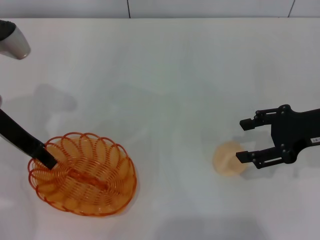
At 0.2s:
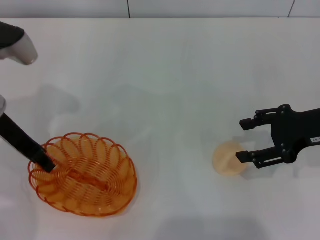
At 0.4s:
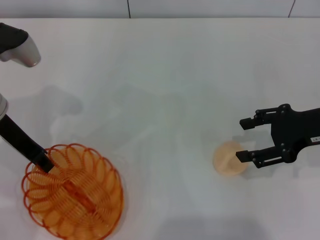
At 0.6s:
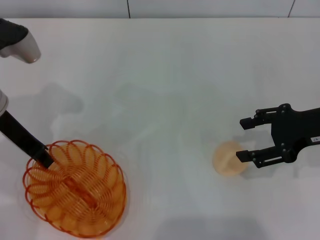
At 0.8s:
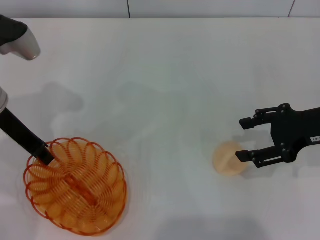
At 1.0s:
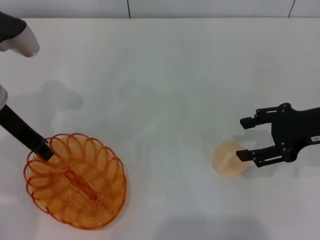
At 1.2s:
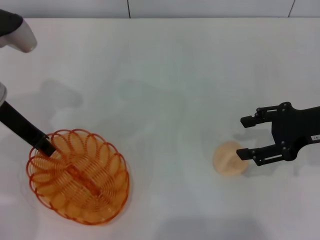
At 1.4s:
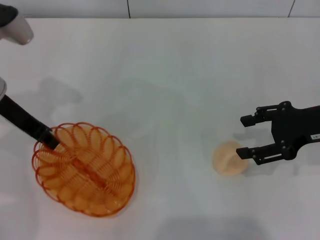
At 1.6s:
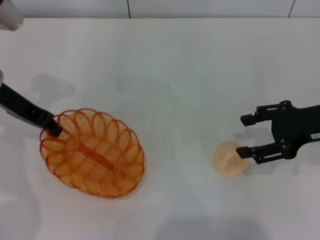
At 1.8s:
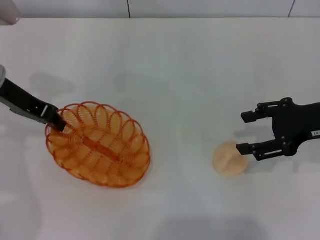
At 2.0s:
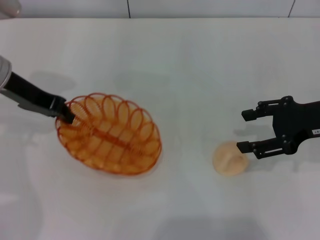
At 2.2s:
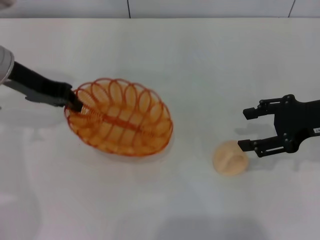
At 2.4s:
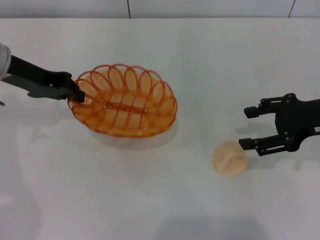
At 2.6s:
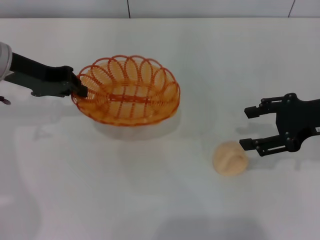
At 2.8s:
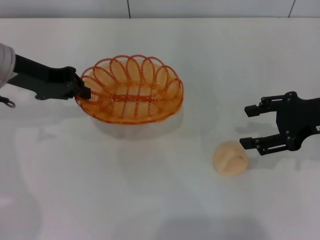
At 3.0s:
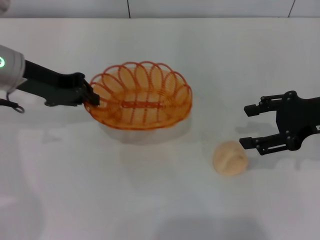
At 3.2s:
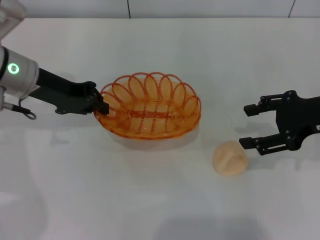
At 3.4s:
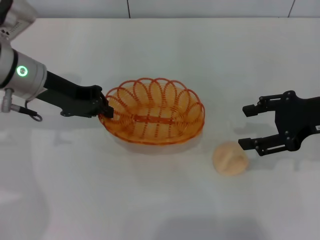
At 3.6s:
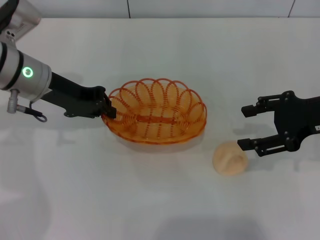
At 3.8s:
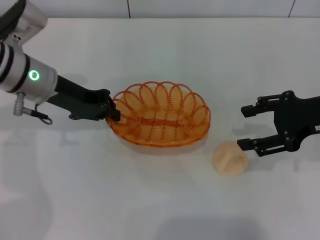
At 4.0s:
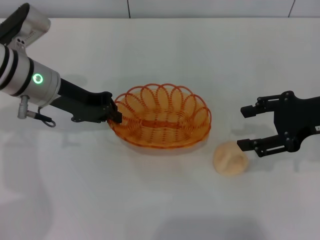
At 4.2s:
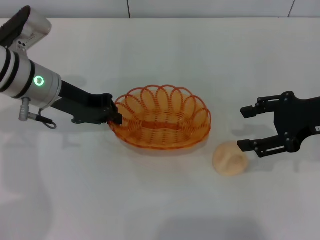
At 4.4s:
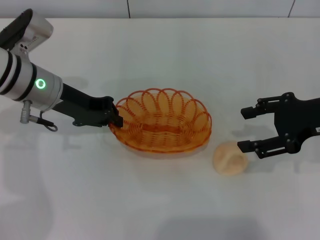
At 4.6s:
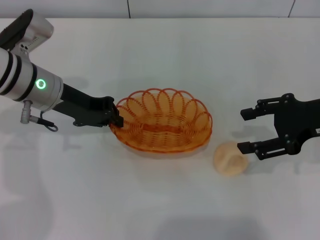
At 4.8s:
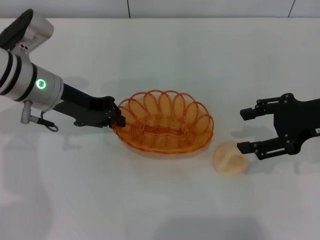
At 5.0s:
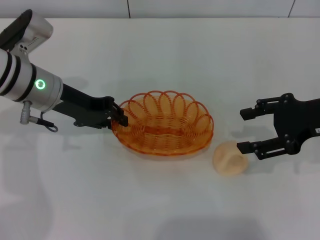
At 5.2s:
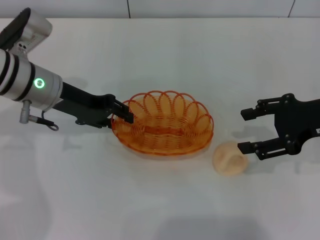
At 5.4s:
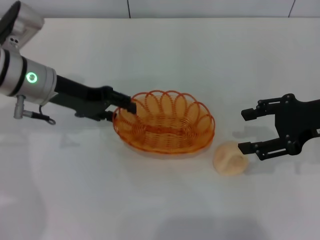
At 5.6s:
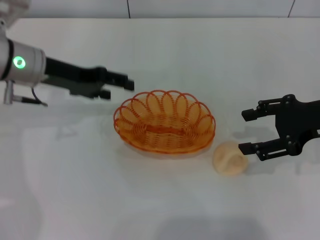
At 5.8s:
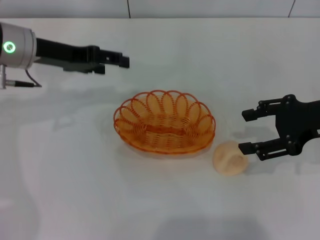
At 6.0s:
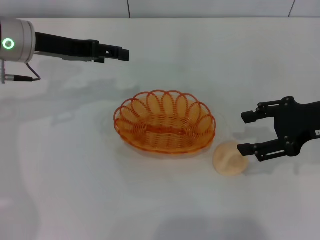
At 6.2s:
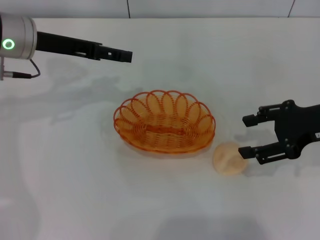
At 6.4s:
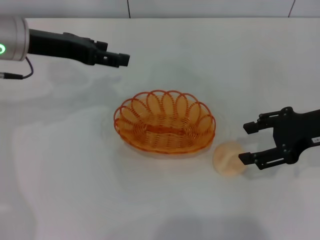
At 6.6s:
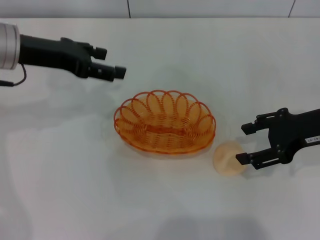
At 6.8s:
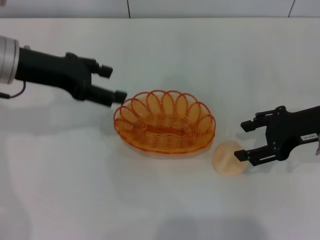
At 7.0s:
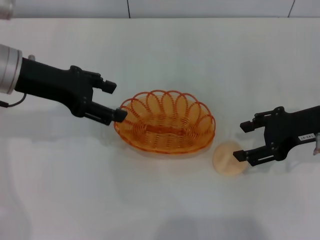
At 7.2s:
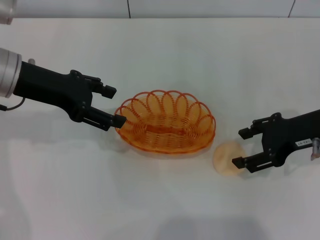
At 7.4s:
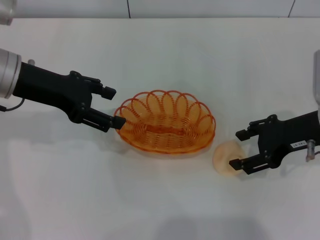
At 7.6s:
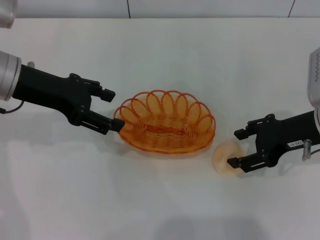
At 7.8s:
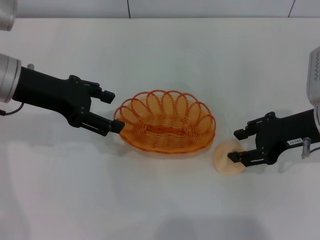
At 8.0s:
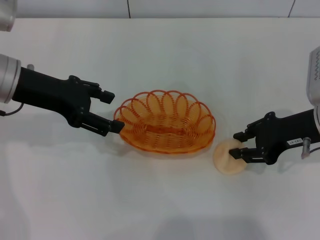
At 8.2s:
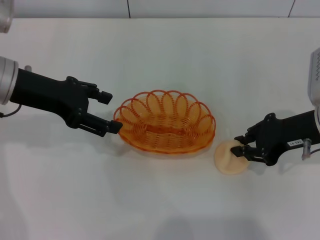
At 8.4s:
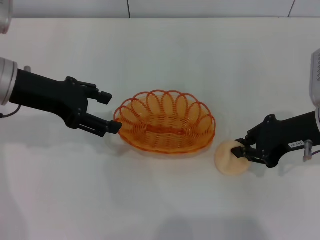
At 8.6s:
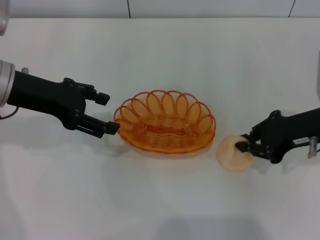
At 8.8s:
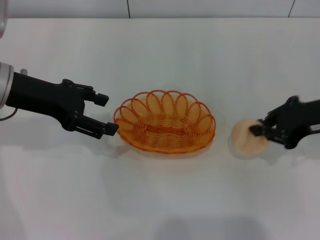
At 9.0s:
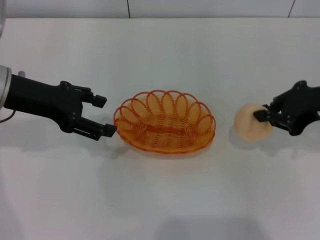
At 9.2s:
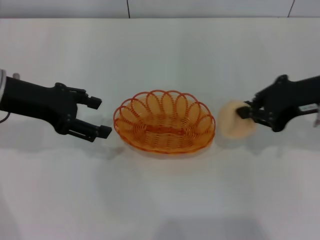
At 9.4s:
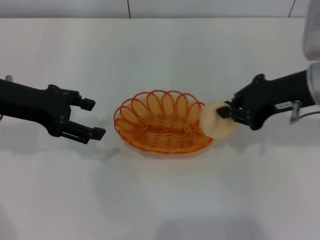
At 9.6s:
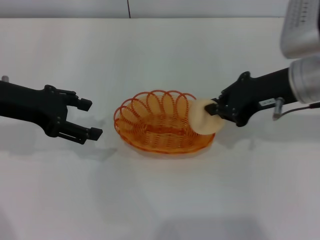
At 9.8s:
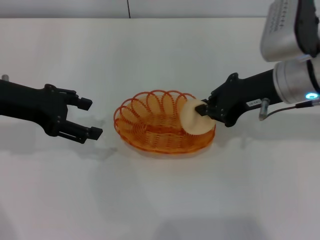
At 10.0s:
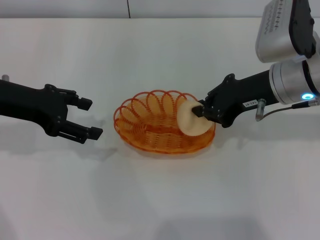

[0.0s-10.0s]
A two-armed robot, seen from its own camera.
Step, 0.0s to 2.2s: Pick up the basket with the left gripper.
Step, 2.4s to 5.8s: Place the basket in the center of view with the left gripper.
Step, 6.0s to 9.0s: Pick up the egg yolk pastry with the right gripper.
0.0s to 1.4s: The left gripper closes up.
2.8s to 4.2s: The left gripper ends up some 5 cm from where it was.
4.2s to 5.8s: The left gripper shifts by some 5 cm, and opens.
7.2s to 8.6s: The right gripper closes.
8.6s to 10.0s: The right gripper goes about 5 cm to the left.

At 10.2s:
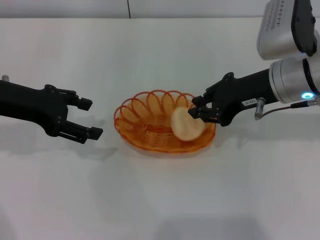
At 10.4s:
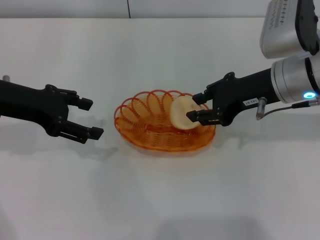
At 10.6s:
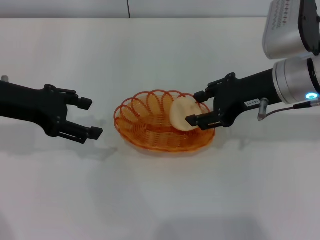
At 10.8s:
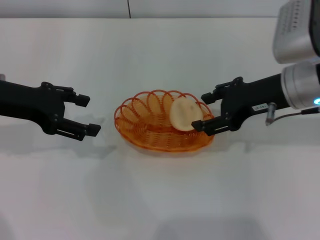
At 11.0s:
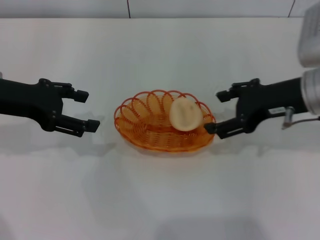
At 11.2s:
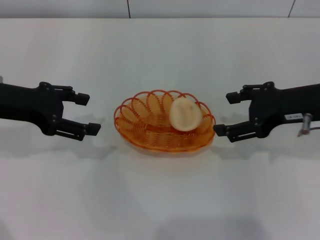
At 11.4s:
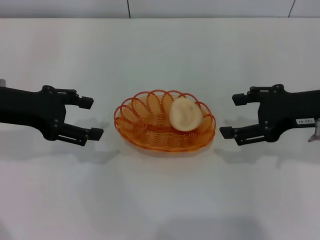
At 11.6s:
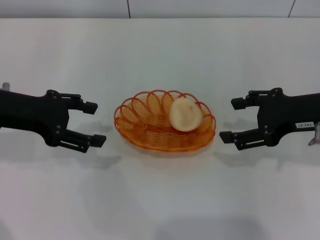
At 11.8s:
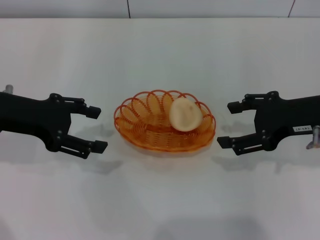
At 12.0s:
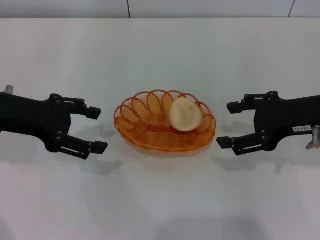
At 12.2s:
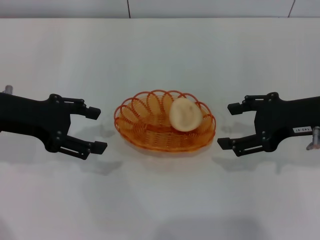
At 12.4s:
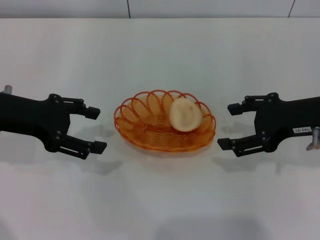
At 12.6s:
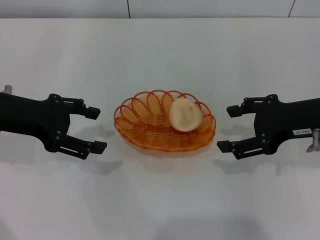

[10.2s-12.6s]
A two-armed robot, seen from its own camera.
10.2s to 11.4s: The right gripper is displaced to the right by roughly 5 cm, and opens its fingers.
11.4s to 12.6s: The grippers move only a little.

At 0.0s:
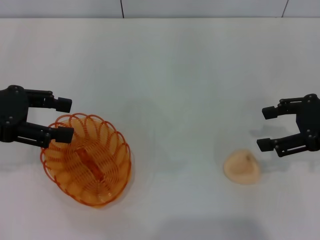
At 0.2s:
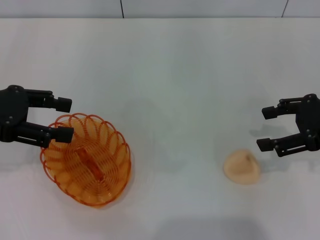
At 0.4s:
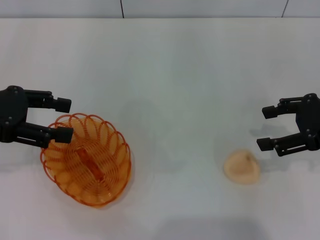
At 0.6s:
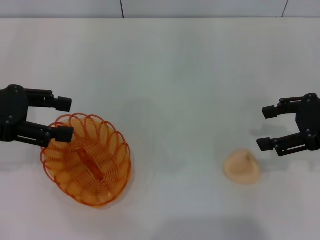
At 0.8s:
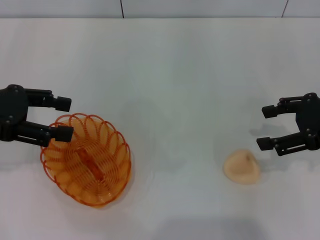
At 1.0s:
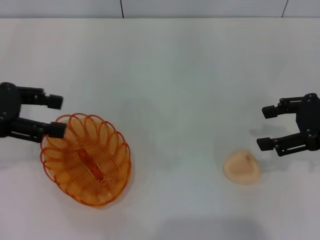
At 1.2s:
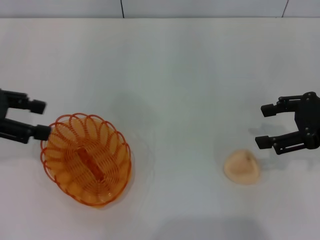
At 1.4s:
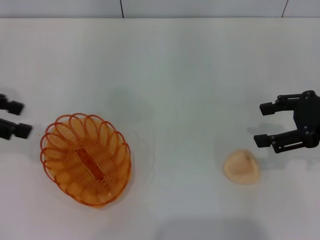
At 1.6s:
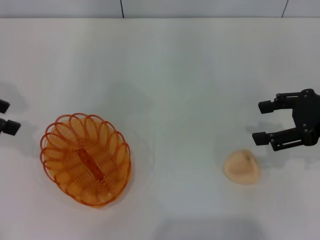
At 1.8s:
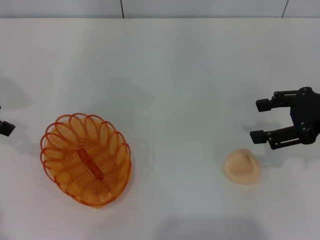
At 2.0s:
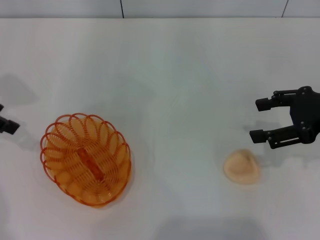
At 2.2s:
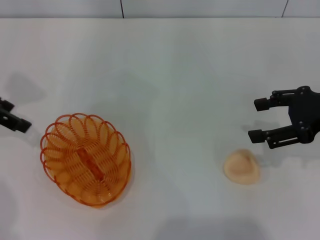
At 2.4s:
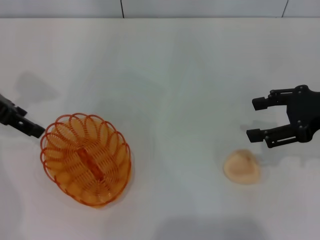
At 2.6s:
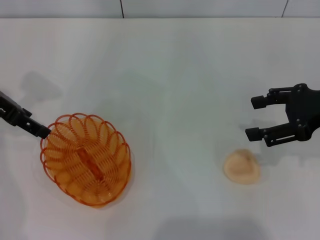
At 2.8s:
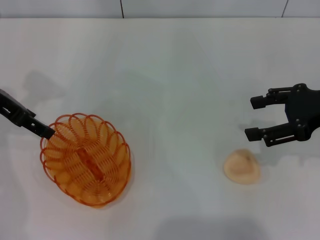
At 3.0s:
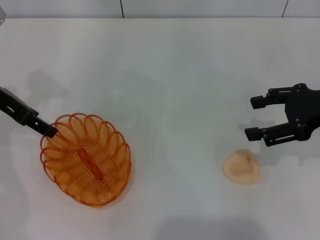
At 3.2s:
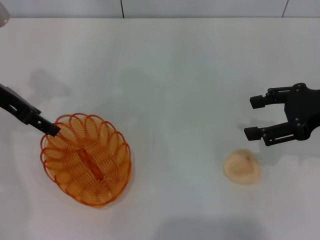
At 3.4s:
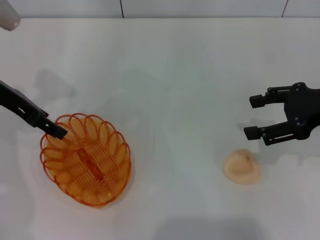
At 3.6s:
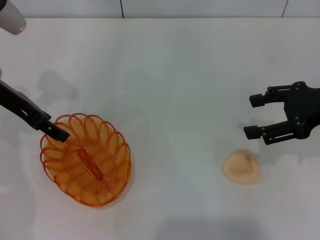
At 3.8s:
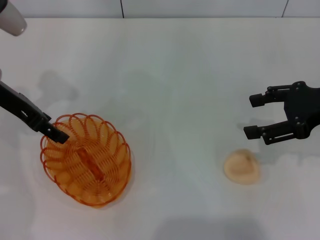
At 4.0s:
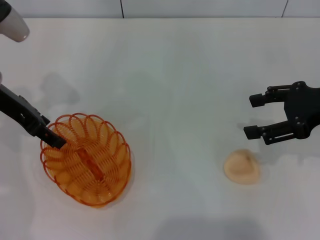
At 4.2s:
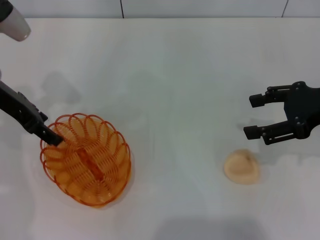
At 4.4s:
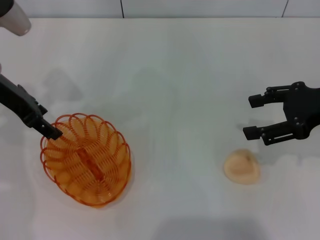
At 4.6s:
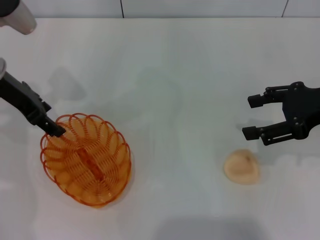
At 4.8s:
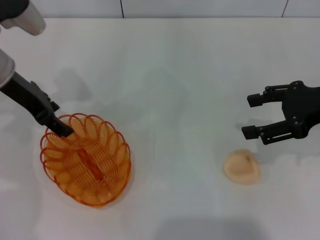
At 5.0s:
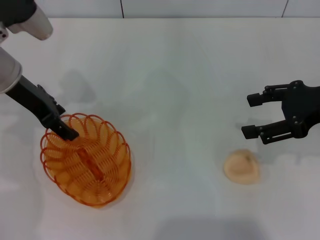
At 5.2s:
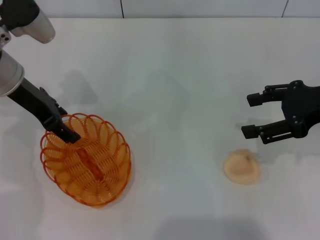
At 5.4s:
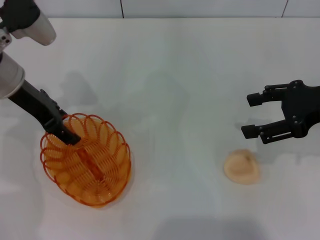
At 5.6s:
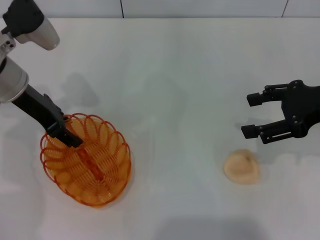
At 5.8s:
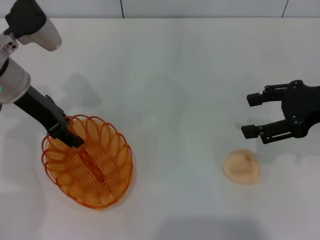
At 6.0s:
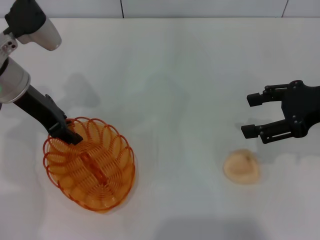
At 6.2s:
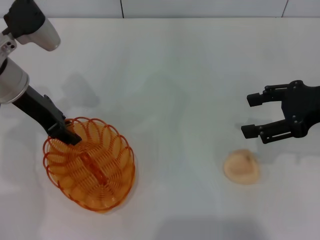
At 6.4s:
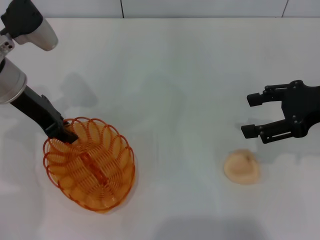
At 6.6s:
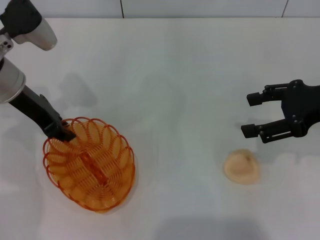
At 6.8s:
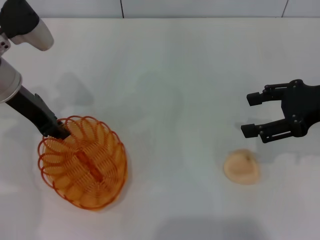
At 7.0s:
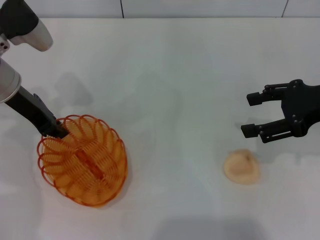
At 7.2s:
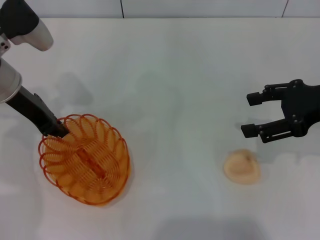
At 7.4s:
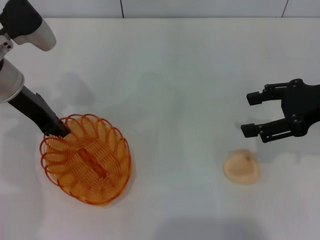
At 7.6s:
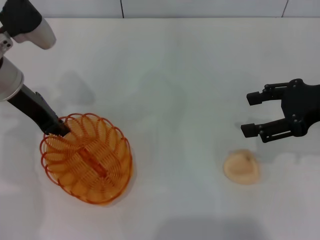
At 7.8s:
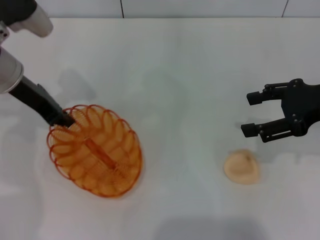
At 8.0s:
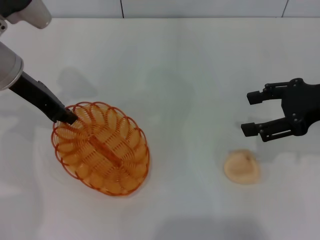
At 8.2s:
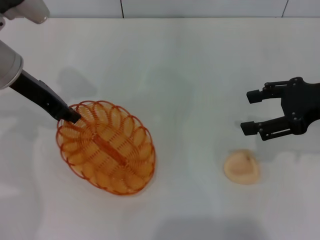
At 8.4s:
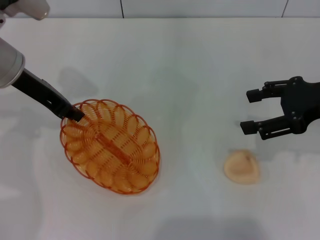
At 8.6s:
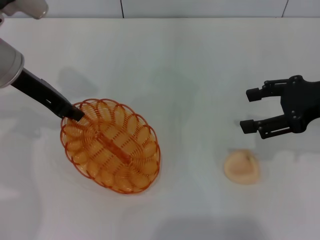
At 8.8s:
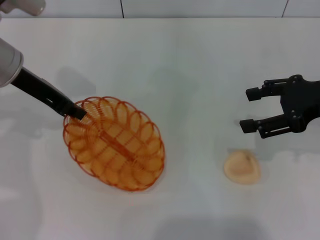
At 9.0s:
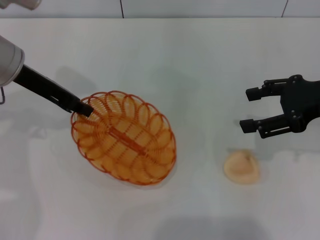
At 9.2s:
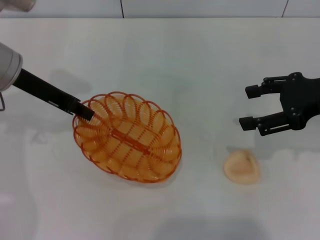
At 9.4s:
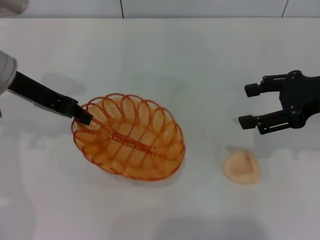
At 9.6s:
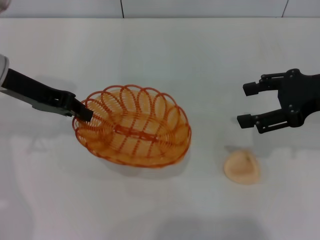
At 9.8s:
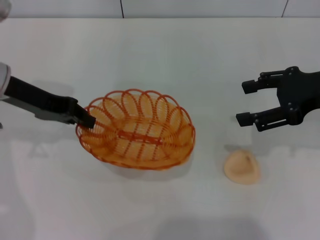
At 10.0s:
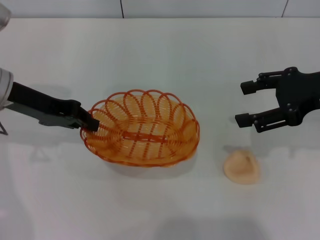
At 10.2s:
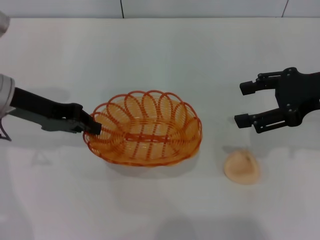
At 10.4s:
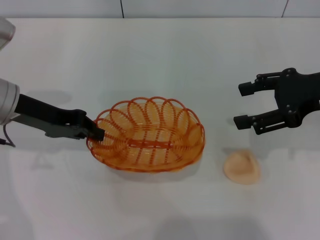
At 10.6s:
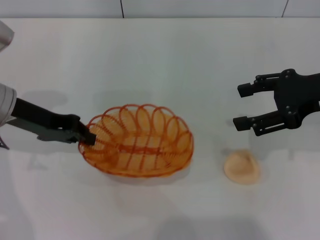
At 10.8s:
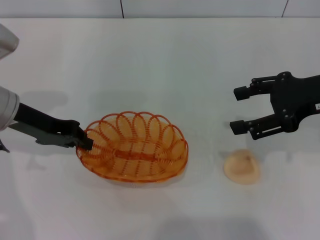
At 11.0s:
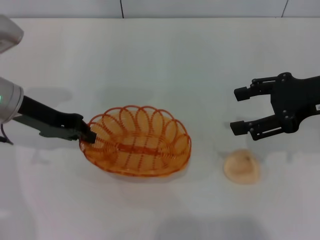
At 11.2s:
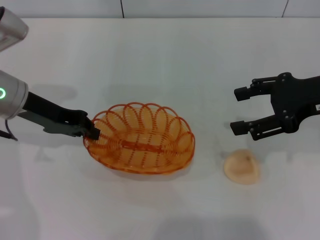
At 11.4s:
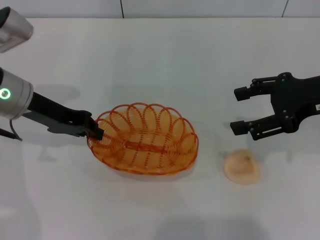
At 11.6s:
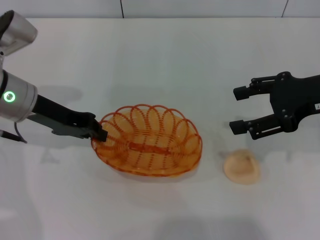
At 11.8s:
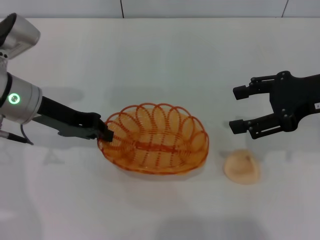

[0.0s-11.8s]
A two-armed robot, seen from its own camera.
Step, 0.0s to 9.4s: Pick up the basket with the left gripper.
1.4s to 3.0s: The left gripper shifts about 10 cm to the right and forward.
3.0s to 6.0s: The grippers move only a little.
6.0s to 7.4s: The left gripper closes up.
7.4s to 8.8s: The grippers make only small movements.
8.8s to 10.4s: The left gripper moves roughly 5 cm.
10.4s to 11.8s: The grippers make only small movements.
